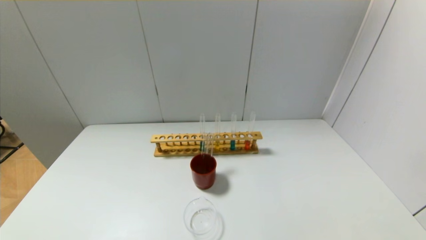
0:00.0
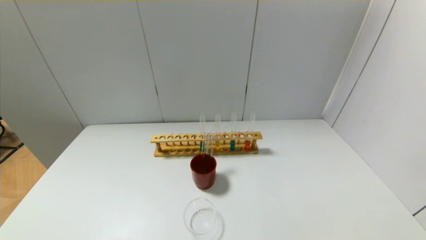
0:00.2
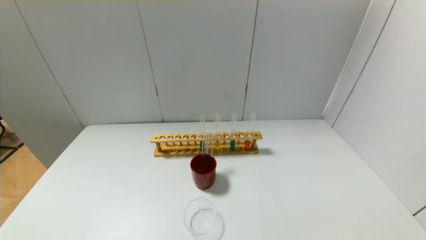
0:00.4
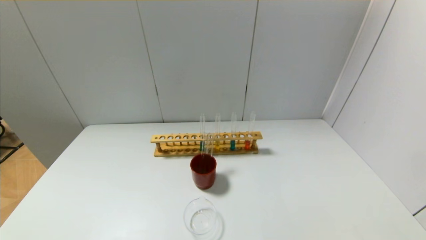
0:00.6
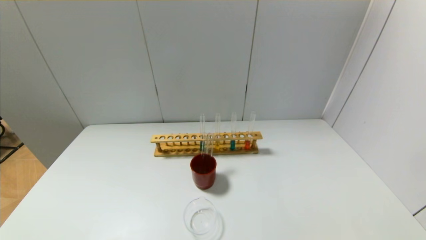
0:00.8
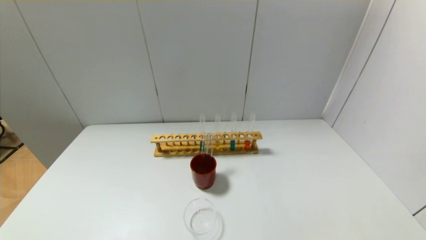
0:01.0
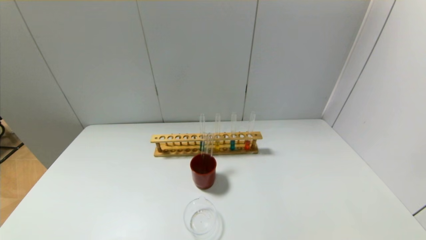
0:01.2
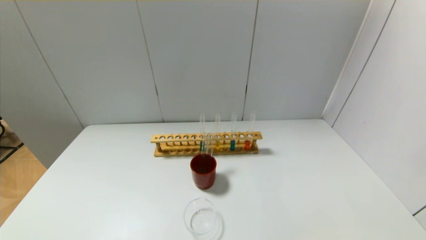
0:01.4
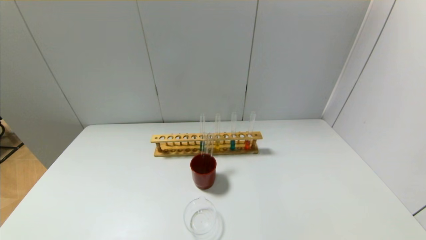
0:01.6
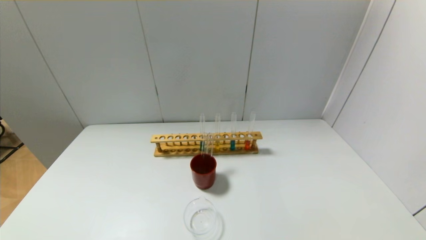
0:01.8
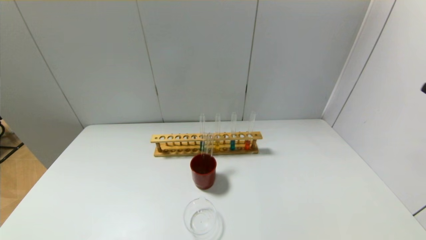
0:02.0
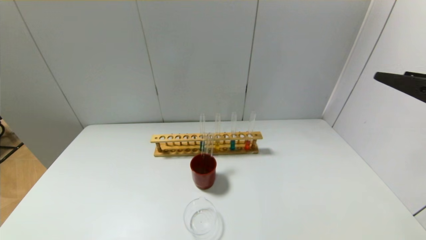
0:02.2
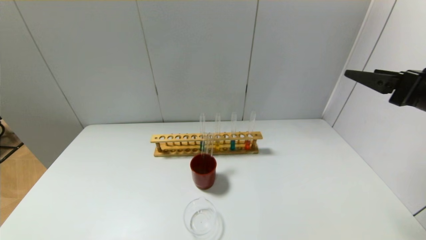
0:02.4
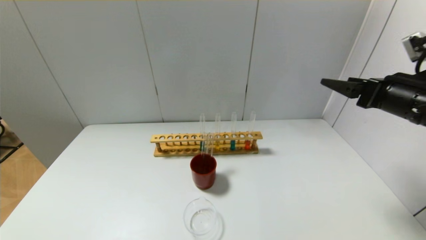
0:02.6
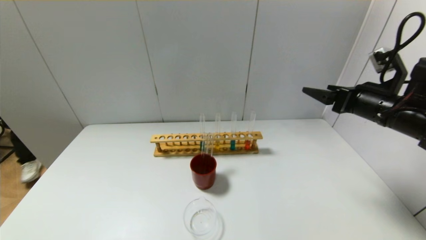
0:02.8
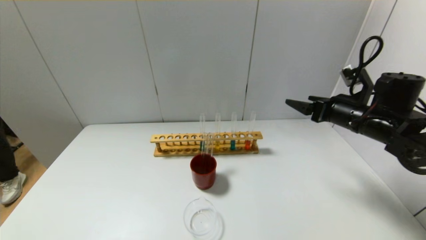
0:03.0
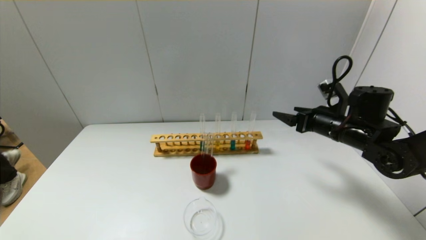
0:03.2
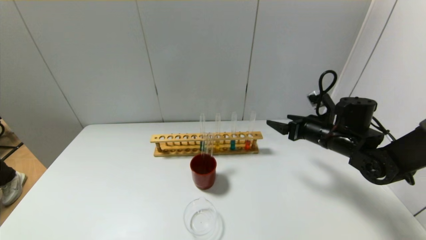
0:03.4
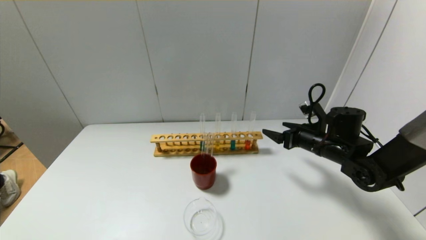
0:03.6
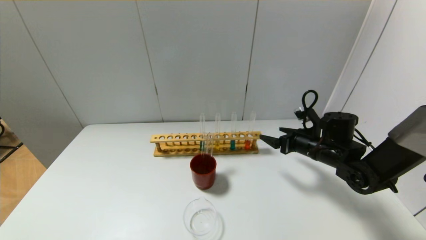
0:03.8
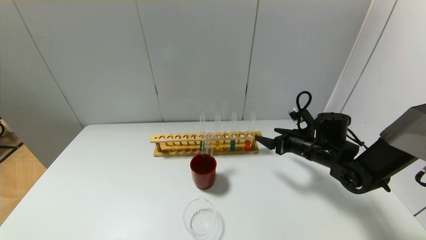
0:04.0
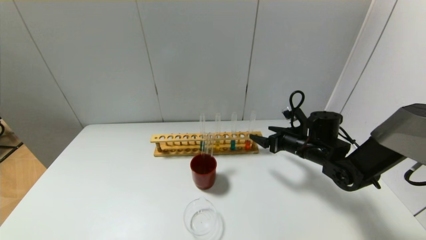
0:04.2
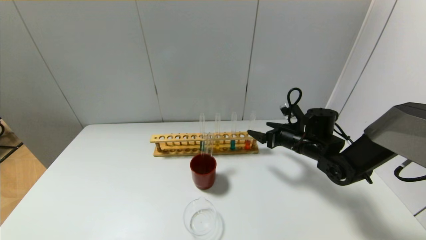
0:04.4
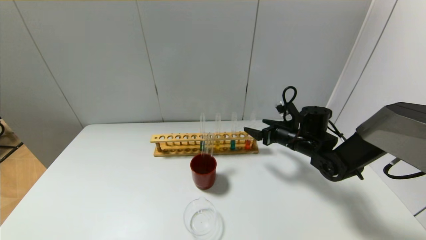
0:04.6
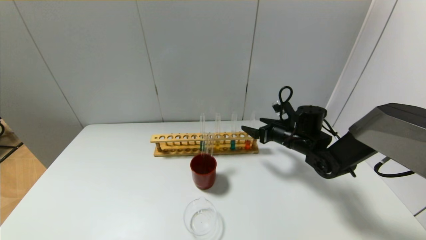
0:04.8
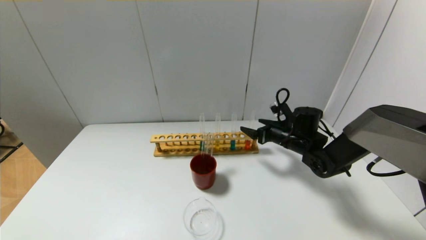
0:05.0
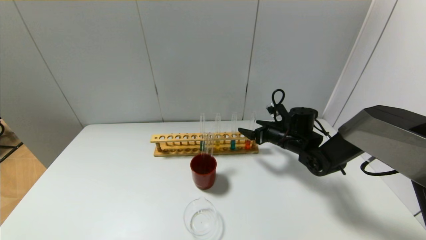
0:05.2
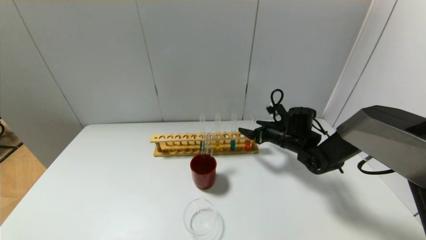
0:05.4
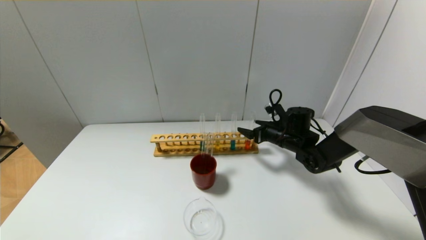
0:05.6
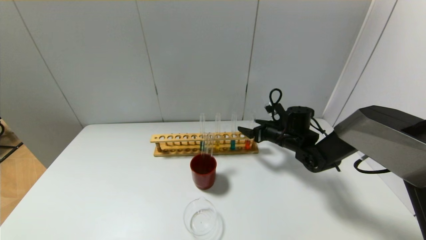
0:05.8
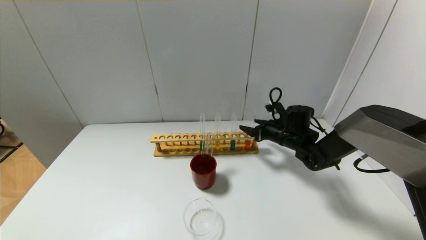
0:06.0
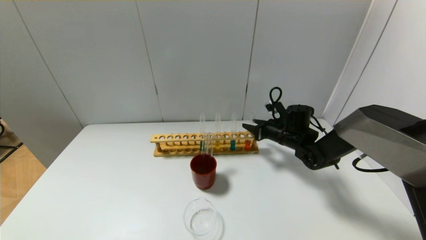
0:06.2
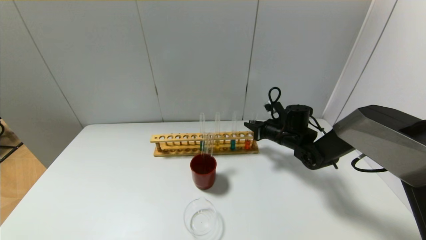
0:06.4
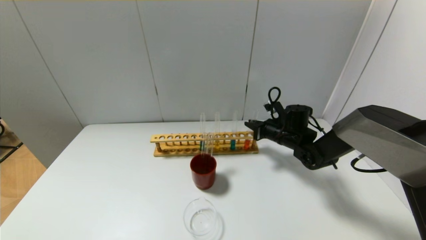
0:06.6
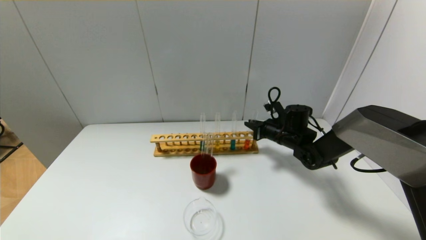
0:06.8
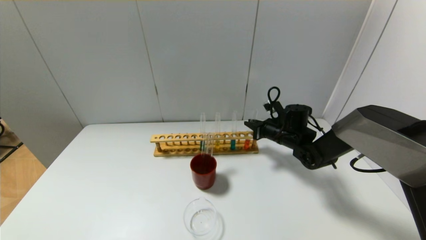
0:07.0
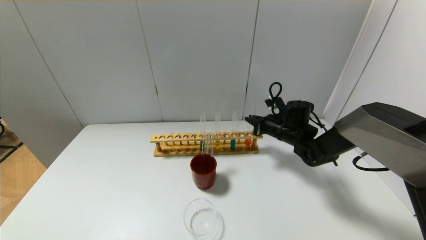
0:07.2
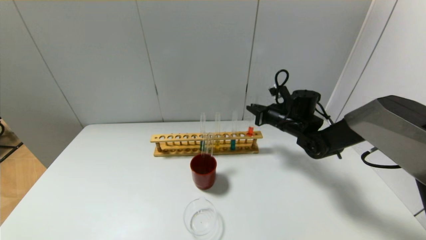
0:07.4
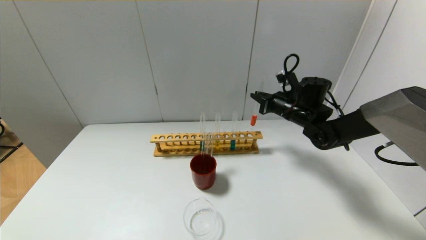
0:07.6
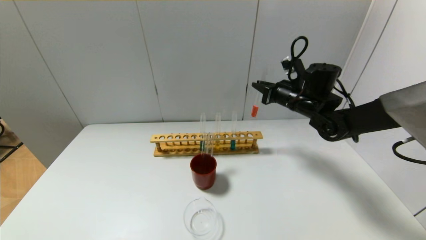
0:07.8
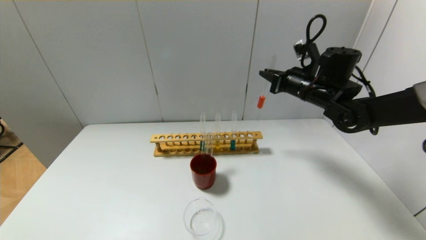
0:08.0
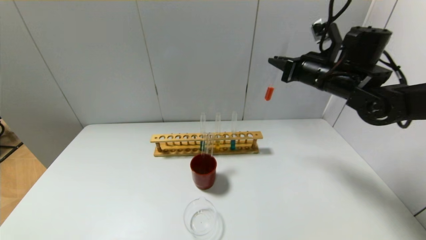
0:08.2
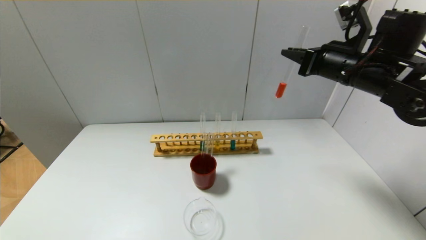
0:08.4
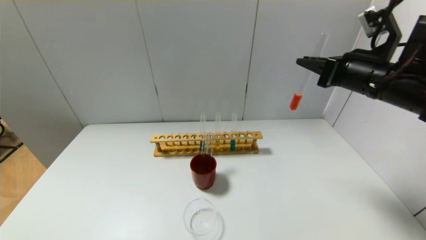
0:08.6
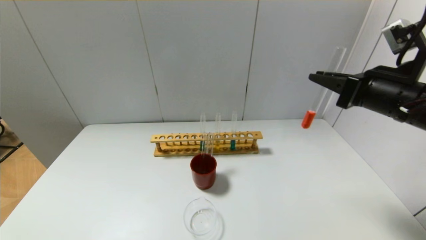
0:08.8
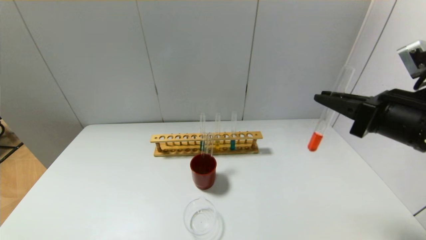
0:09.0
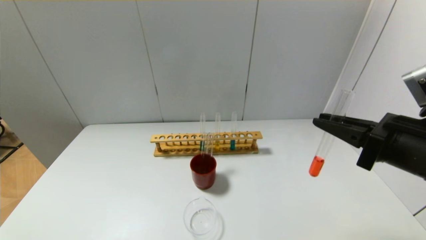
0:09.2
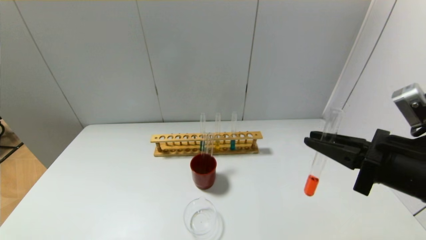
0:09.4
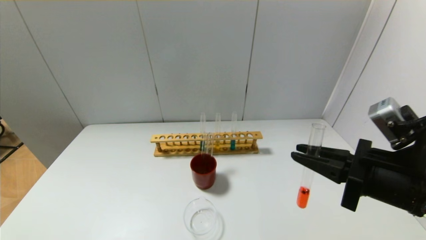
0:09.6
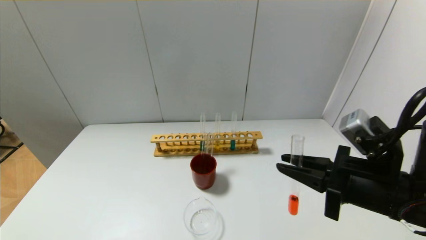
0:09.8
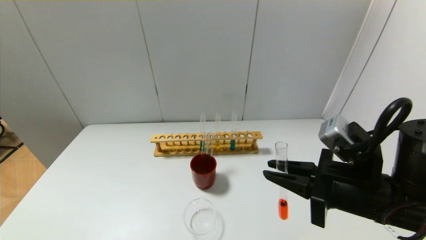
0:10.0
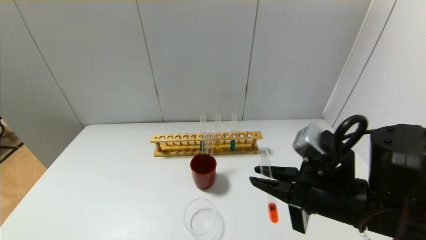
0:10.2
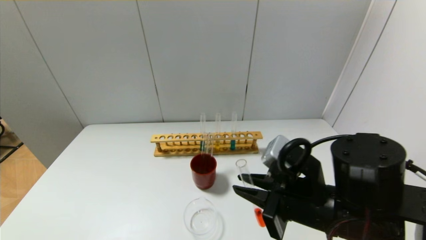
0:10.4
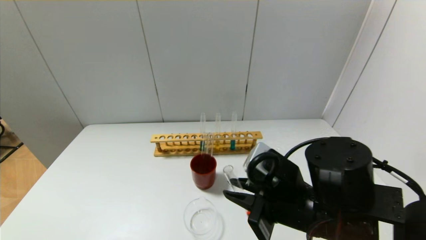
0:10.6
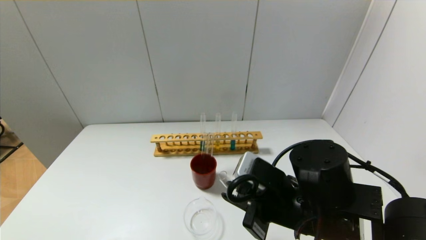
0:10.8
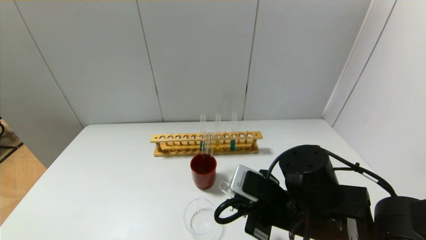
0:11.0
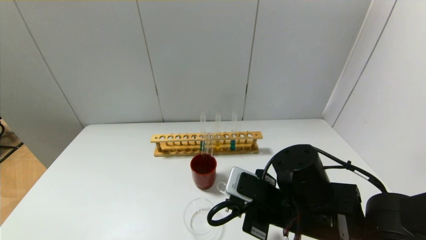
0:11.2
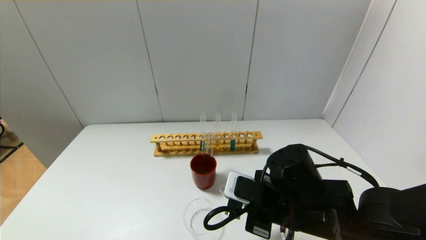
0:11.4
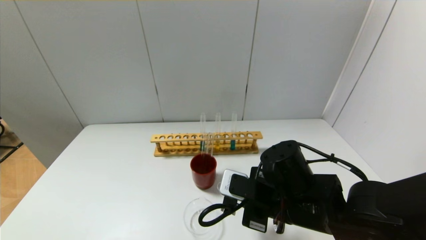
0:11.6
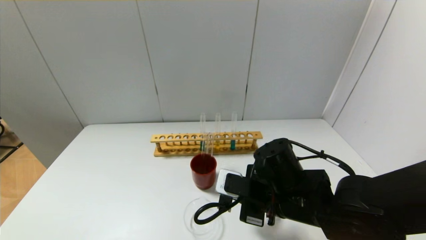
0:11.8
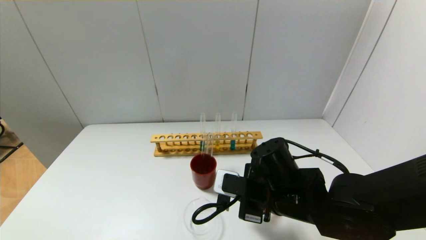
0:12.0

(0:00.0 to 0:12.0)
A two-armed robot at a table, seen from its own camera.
Step, 0:00.0 - 0:06.4: Grasp the red reagent with the right gripper.
0:01.6 - 0:03.0: The right gripper is displaced forward by some 35 cm.
0:03.0 - 0:04.4: The right gripper moves downward, to the left and forward, some 15 cm.
0:04.4 - 0:06.0: The right gripper shifts approximately 5 cm forward.
0:06.0 - 0:07.6: The right gripper shifts about 10 cm upward, and closes its fingers.
0:07.6 - 0:09.0: The right gripper shifts about 25 cm backward and upward.
0:09.0 - 0:10.4: The right gripper is displaced to the left and downward by about 15 cm.
0:10.4 - 0:12.0: The right gripper heads downward and forward, covering approximately 10 cm.

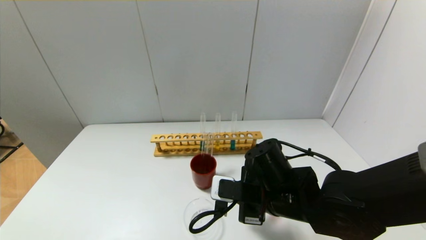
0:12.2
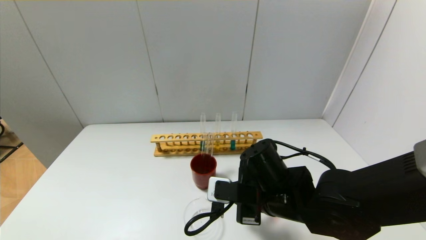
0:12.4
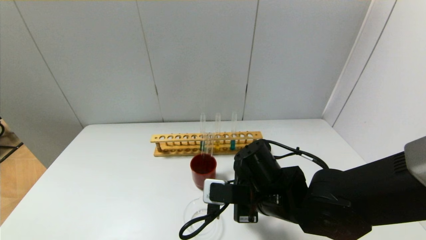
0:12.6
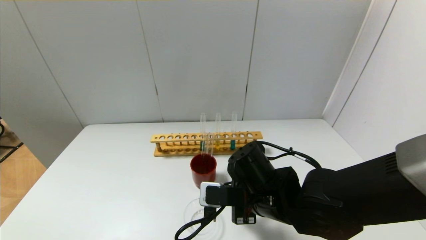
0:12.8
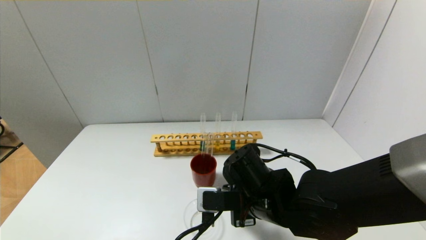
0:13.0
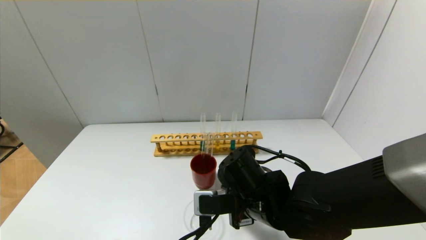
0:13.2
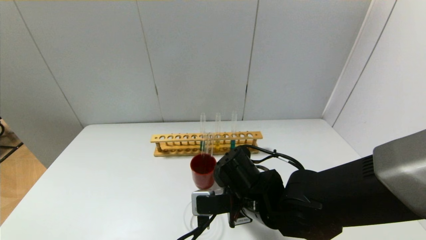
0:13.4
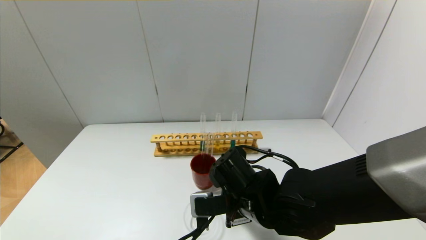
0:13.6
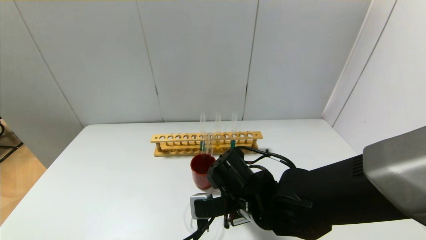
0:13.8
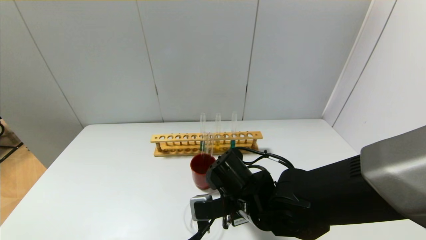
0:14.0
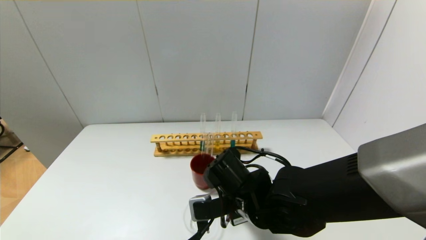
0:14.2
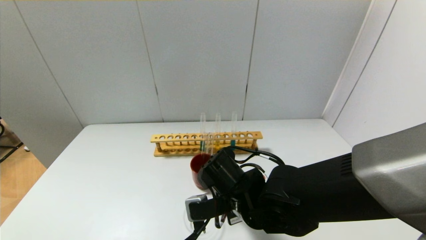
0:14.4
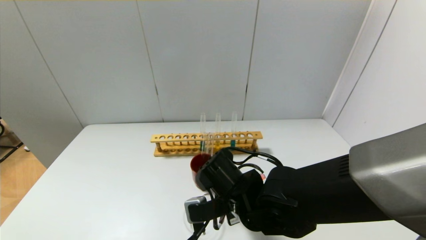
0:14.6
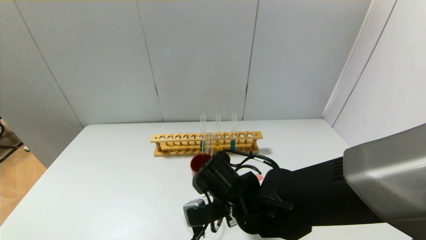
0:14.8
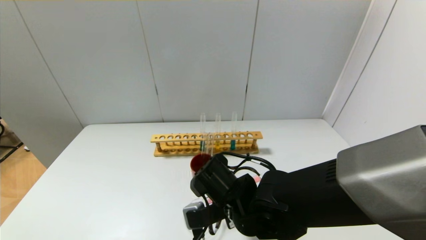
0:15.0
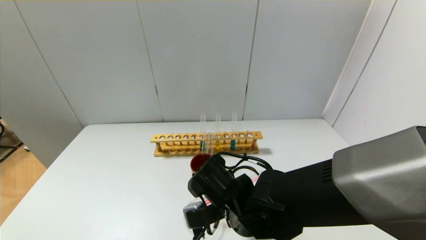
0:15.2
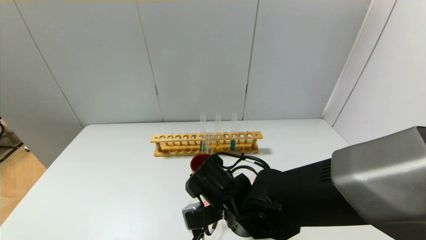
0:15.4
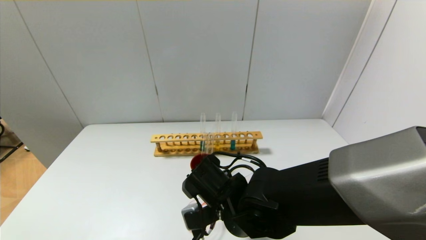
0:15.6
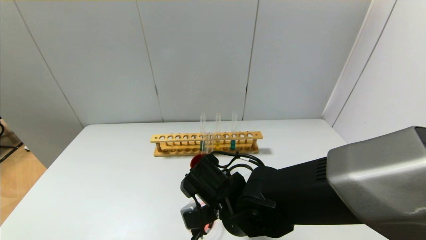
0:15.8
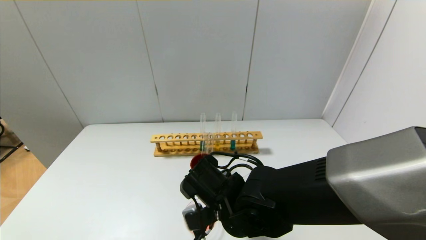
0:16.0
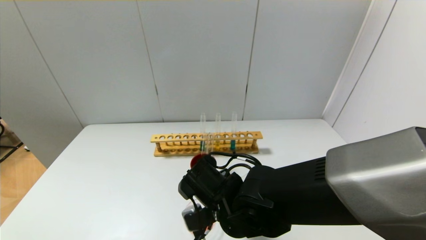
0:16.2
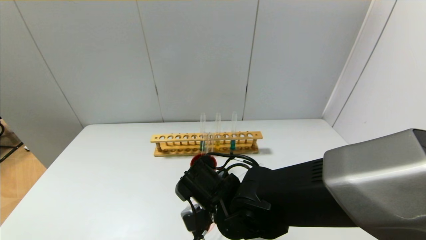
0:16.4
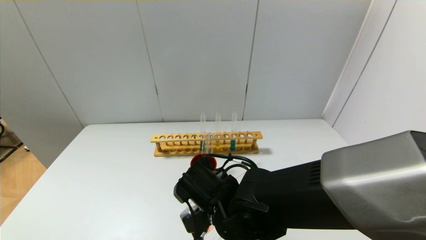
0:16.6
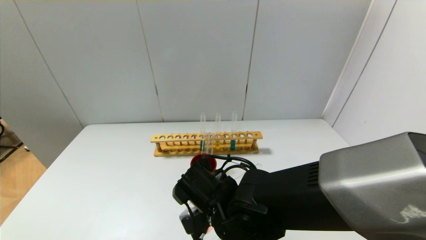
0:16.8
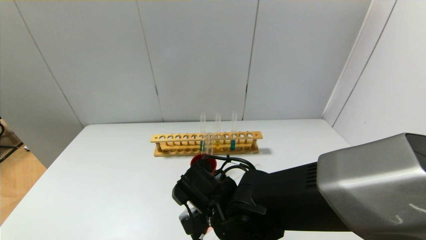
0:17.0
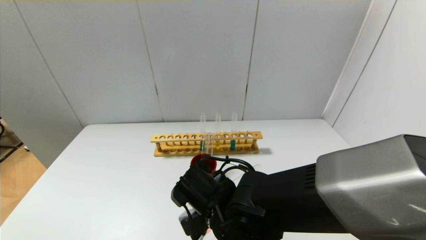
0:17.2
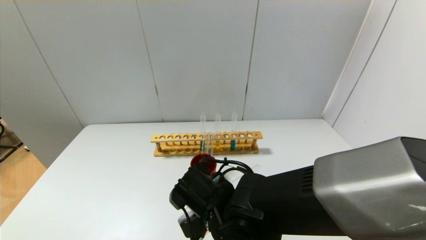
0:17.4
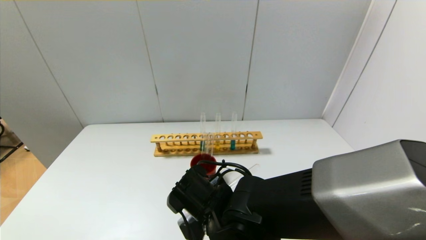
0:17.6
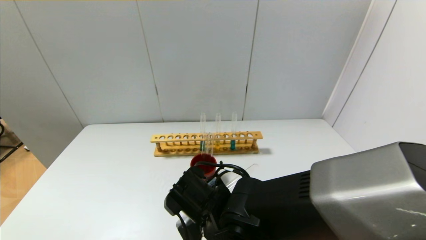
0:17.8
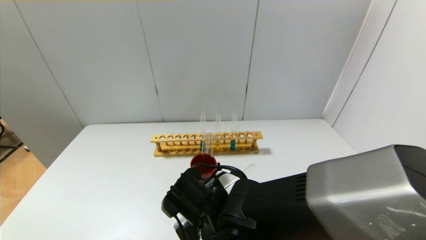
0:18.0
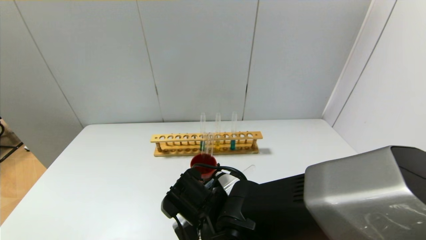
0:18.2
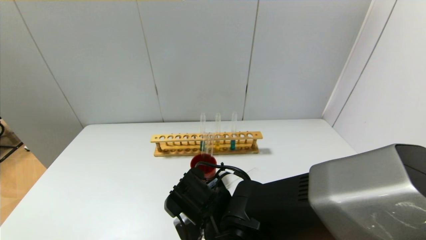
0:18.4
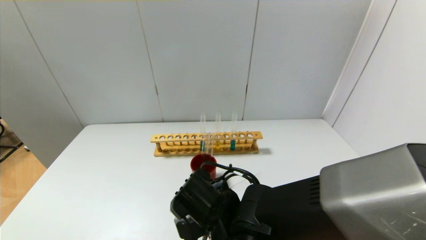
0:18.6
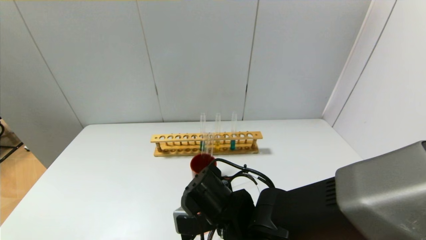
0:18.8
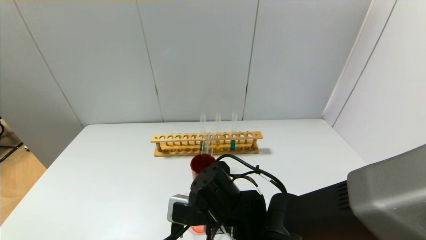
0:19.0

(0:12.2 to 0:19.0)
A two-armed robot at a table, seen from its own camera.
Step, 0:12.2 - 0:19.0: Pour the red reagent into the graduated cylinder with the right gripper.
0:13.6 - 0:15.0: The grippers stay close to where they were, moving slightly.
0:15.0 - 0:17.6: There are only small adjustments of the grippers.
